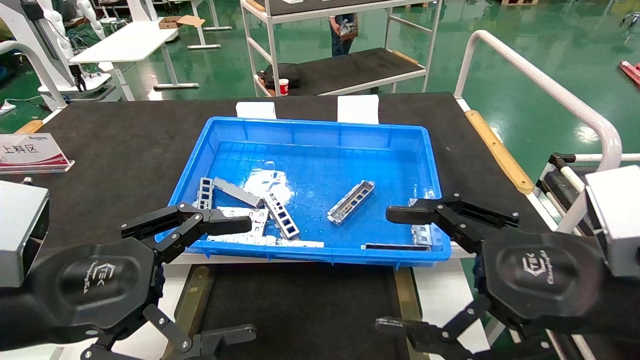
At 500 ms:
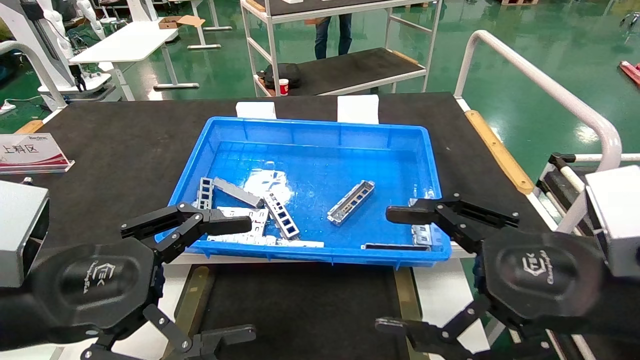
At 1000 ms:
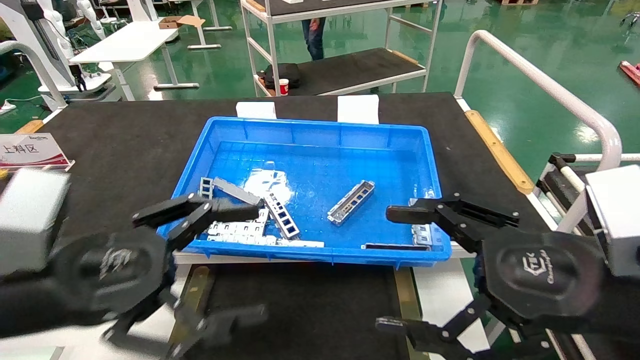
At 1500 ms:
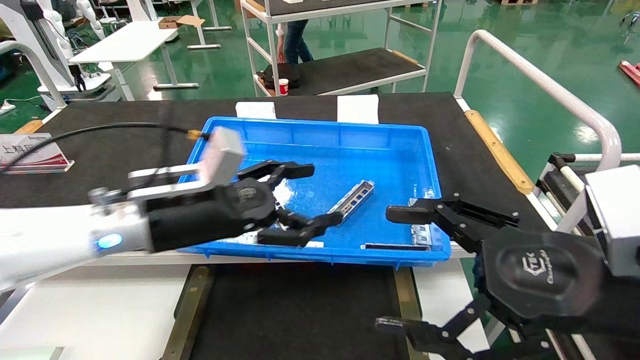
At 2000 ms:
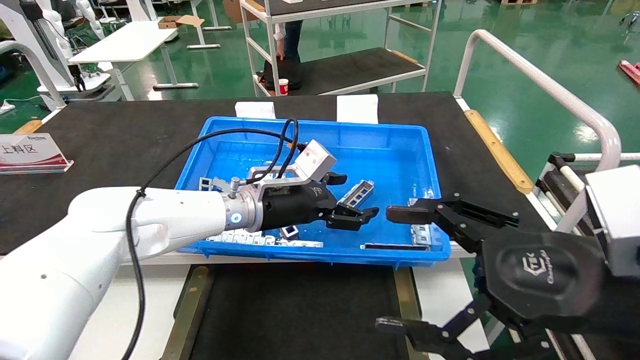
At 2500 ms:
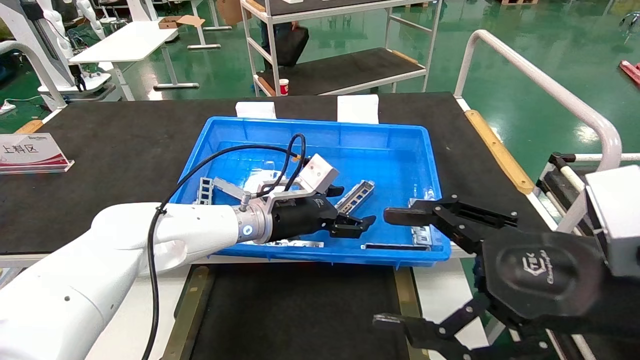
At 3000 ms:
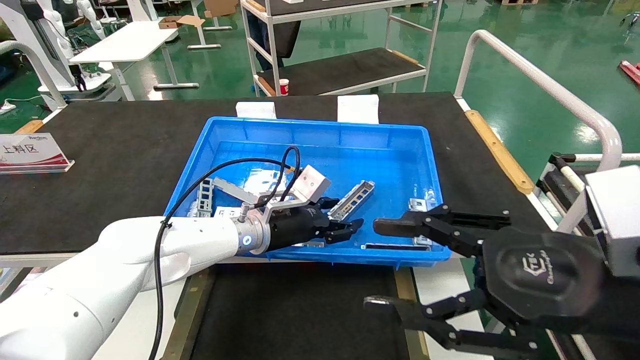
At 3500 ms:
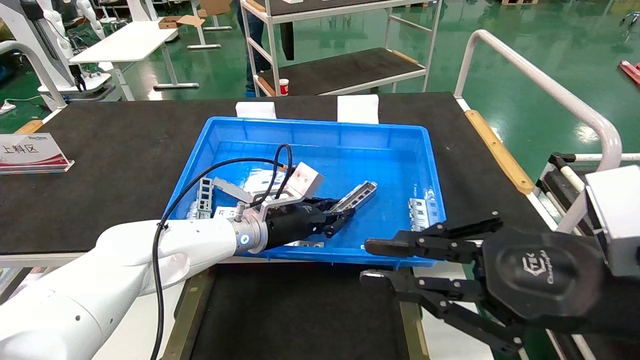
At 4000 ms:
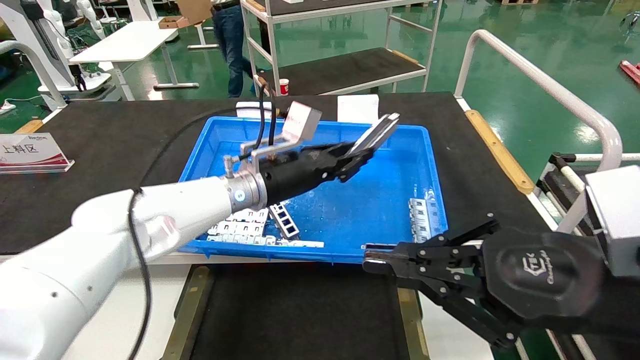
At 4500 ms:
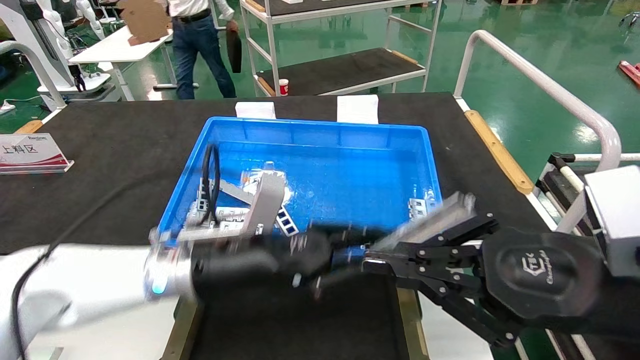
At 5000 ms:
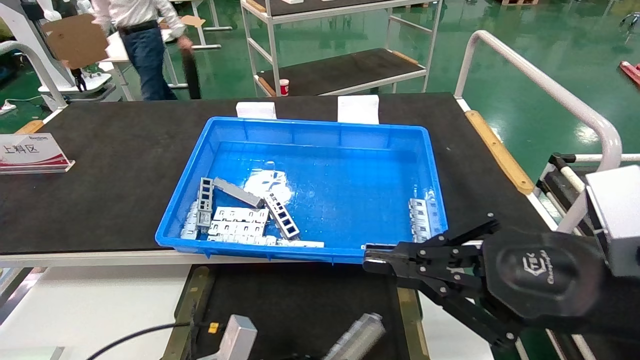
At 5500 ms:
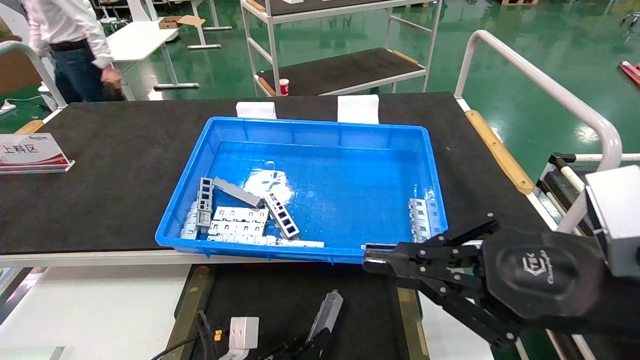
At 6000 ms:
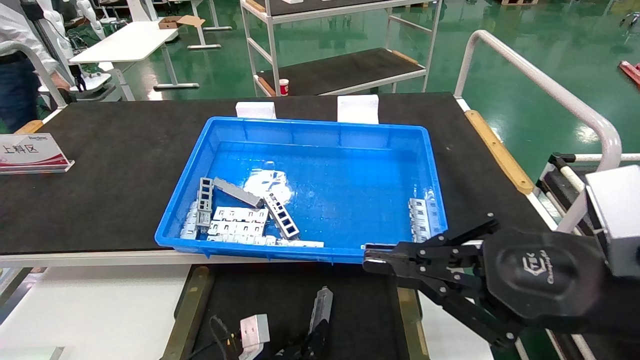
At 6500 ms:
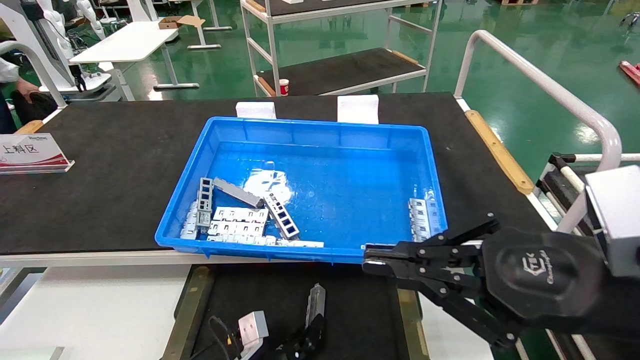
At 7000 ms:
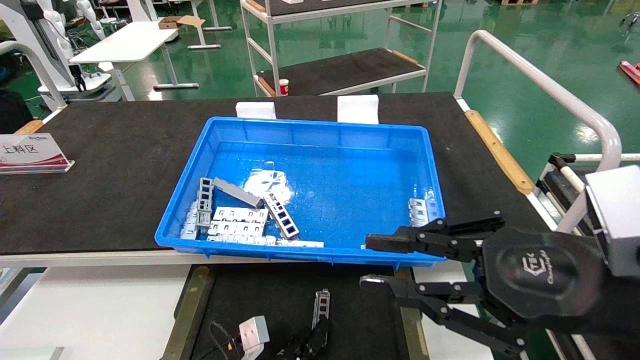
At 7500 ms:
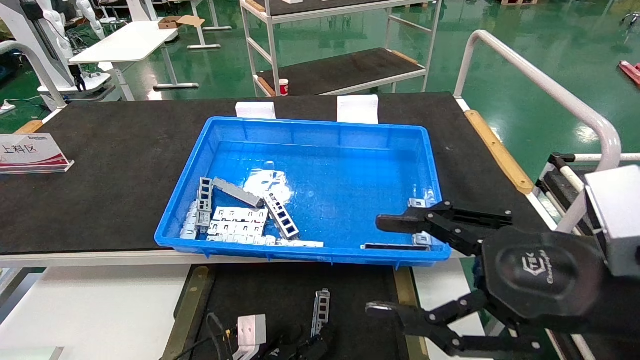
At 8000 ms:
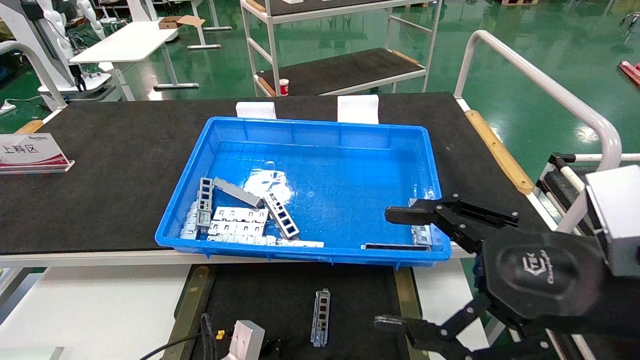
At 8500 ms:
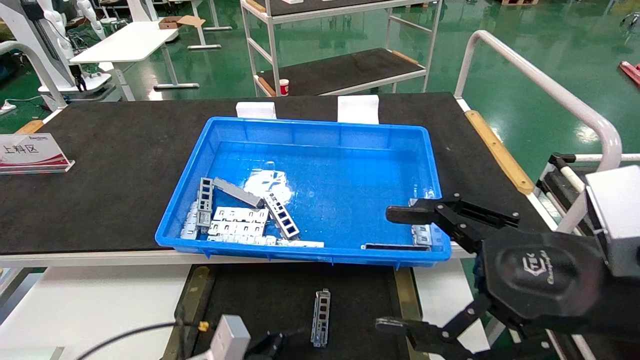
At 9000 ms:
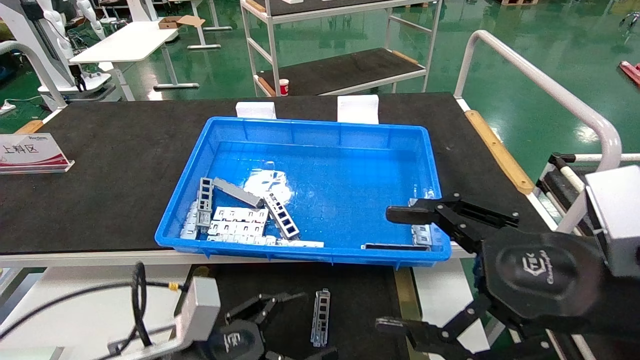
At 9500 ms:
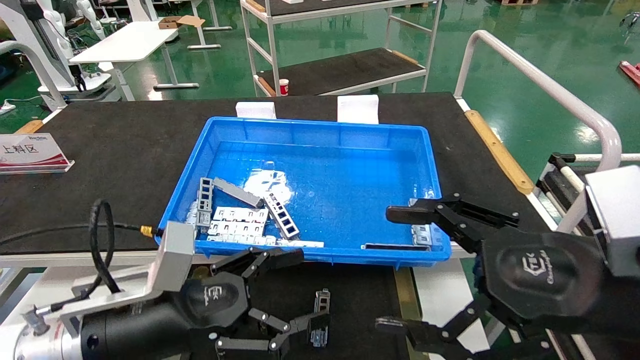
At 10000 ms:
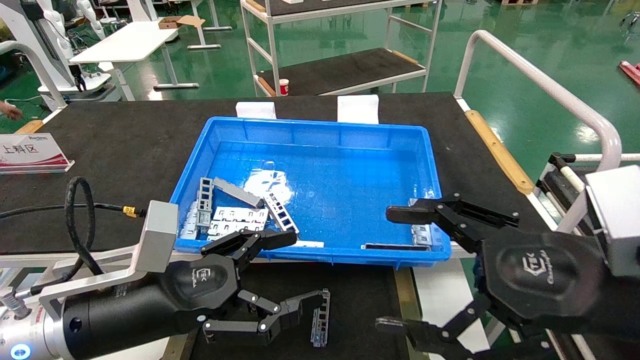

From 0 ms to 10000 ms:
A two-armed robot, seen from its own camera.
Task of the whole recording: Grasp the part with one hand and place it on the black container.
Step, from 1500 ms to 3500 ms: Pick up the front USB bracket from the feeding area.
Step, from 4000 ms to 7000 ms: Place the front USB bracket into the box.
From 0 ms to 2000 ms: The left gripper moves forward and to the right, some 30 cm.
From 2000 ms to 4000 ms: The right gripper closes, while the left gripper closes.
From 4000 ms to 6000 ms: The left gripper shifts about 30 cm downward.
From 6000 ms to 8000 ms: The right gripper opens its fingers, while the left gripper changes place by approximately 5 cm, and opens its fingers.
From 8000 ms to 10000 ms: The left gripper moves upward, approximately 25 cm.
